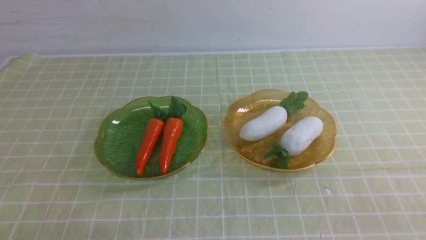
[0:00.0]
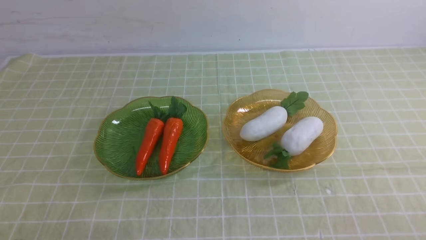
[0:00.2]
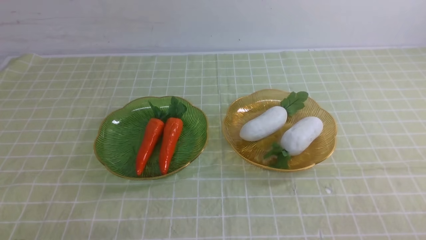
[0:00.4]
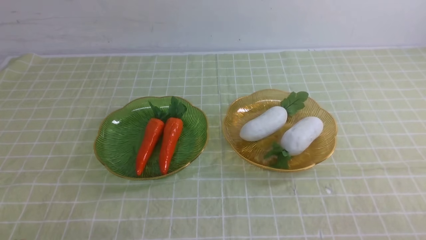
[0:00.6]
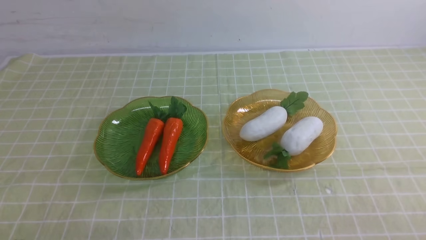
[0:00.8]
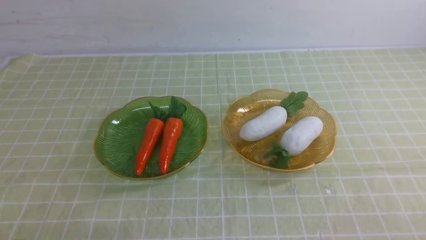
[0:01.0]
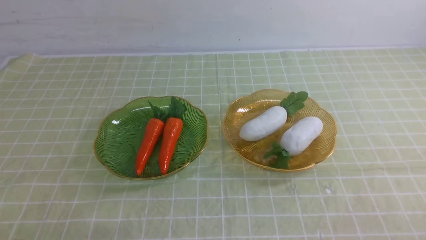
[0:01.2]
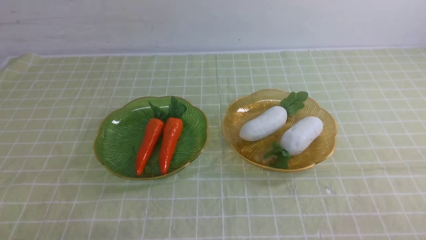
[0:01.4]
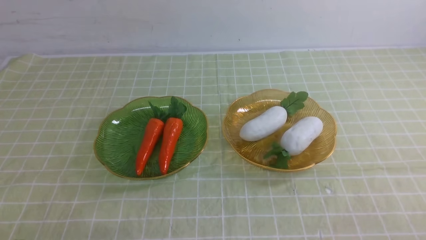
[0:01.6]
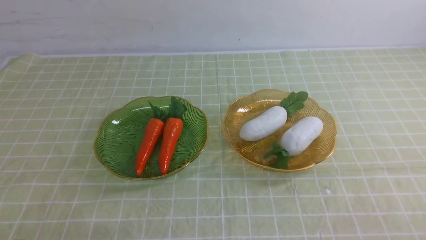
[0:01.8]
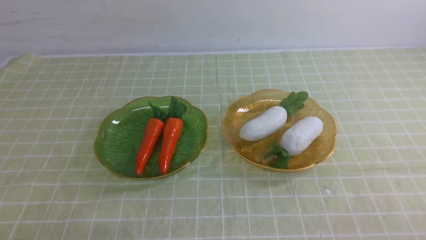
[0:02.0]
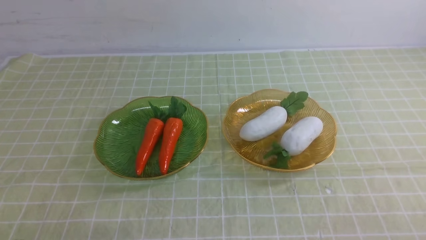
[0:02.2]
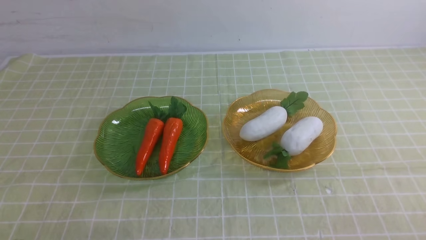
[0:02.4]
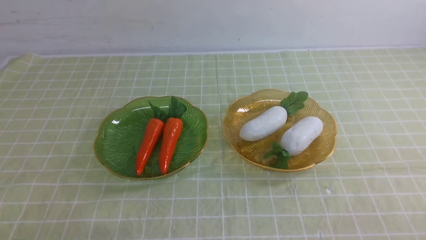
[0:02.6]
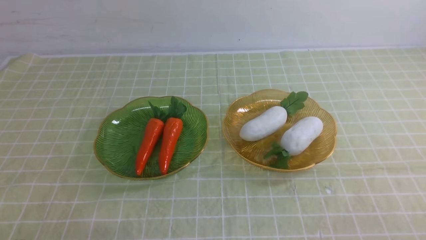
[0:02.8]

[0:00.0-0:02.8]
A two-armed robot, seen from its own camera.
0:01.4 to 0:02.8: Both grippers stay about where they are.
